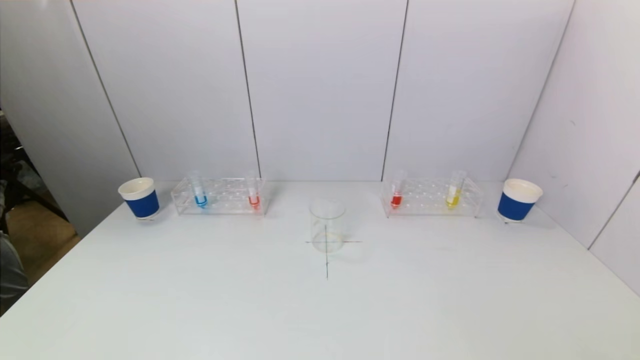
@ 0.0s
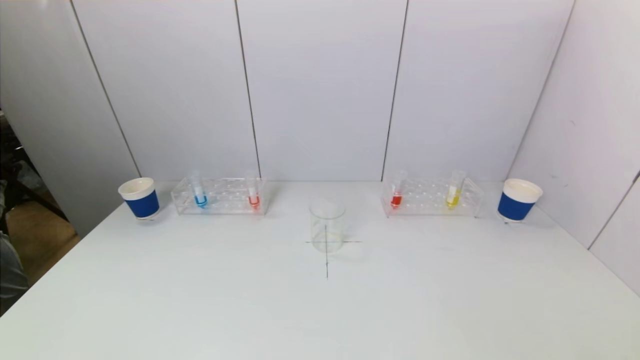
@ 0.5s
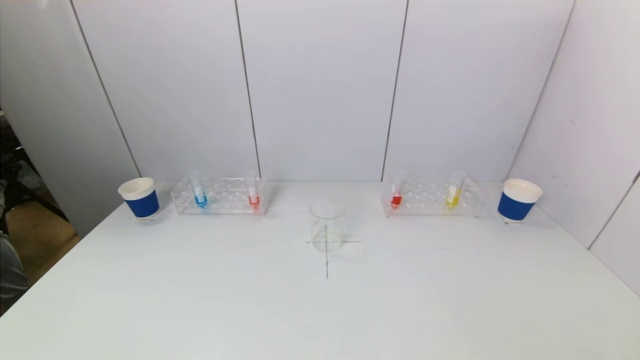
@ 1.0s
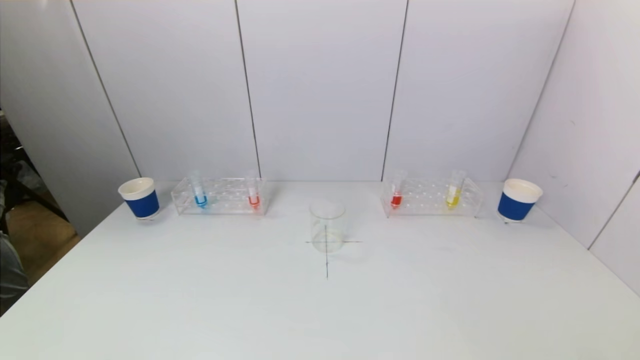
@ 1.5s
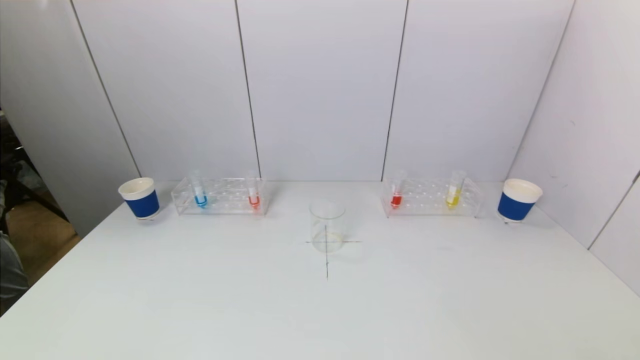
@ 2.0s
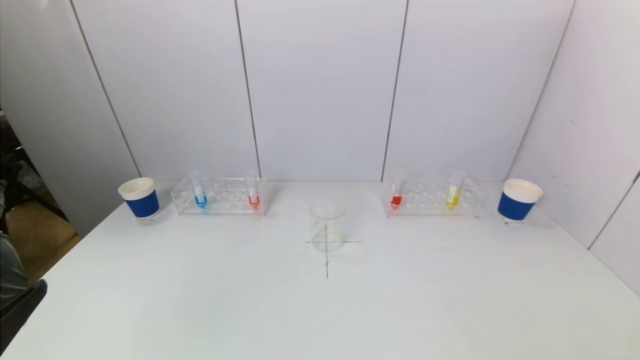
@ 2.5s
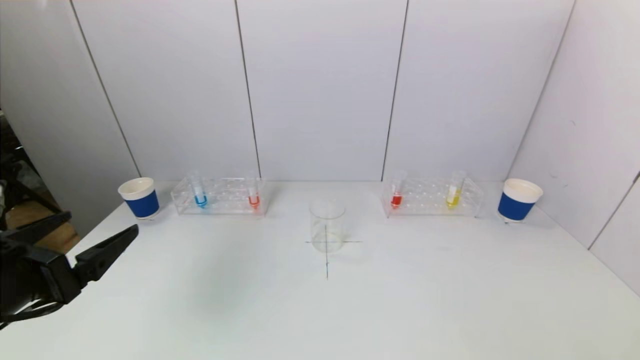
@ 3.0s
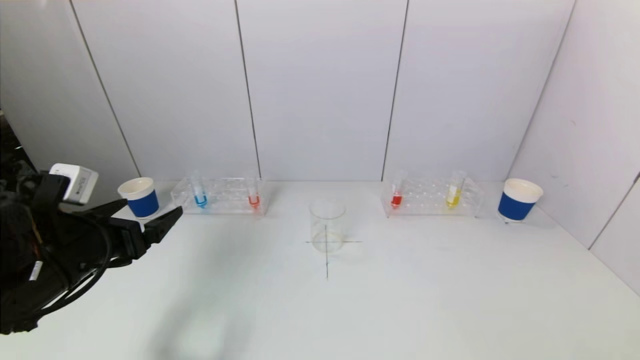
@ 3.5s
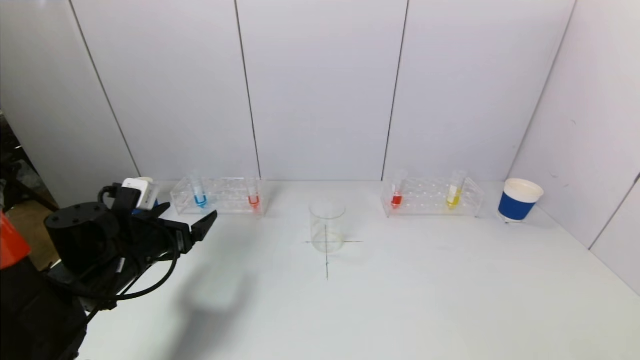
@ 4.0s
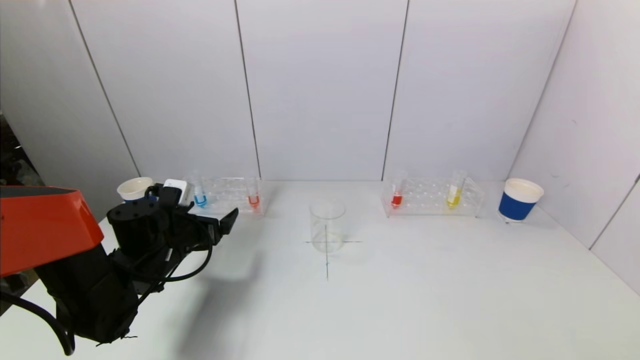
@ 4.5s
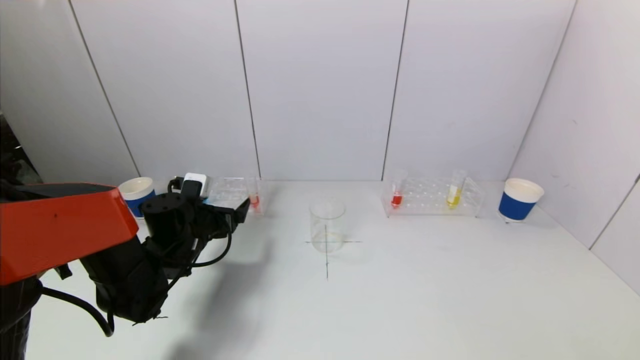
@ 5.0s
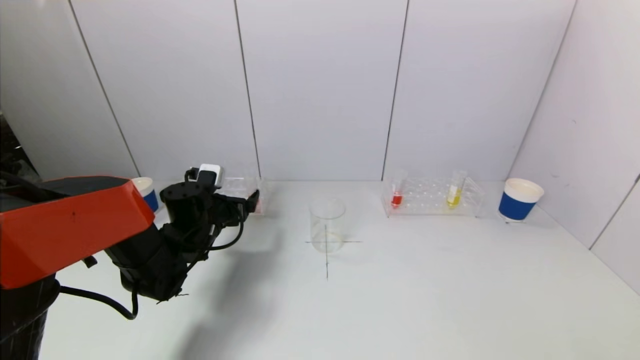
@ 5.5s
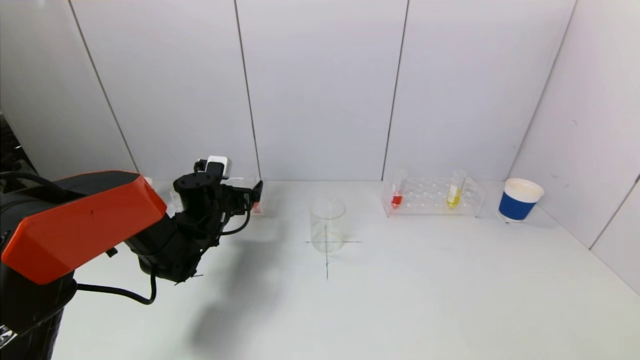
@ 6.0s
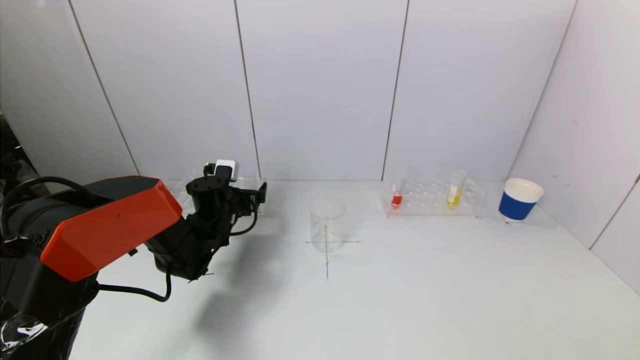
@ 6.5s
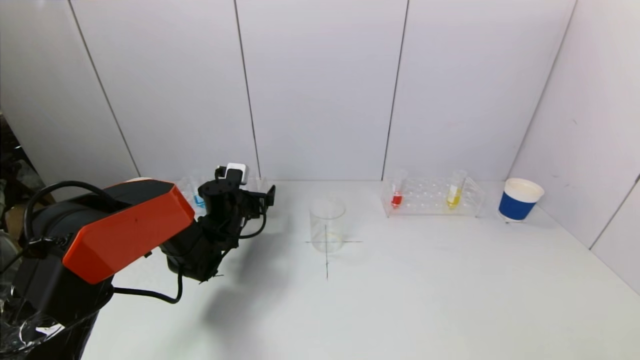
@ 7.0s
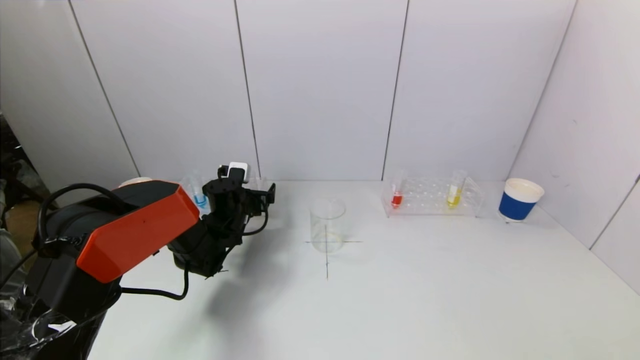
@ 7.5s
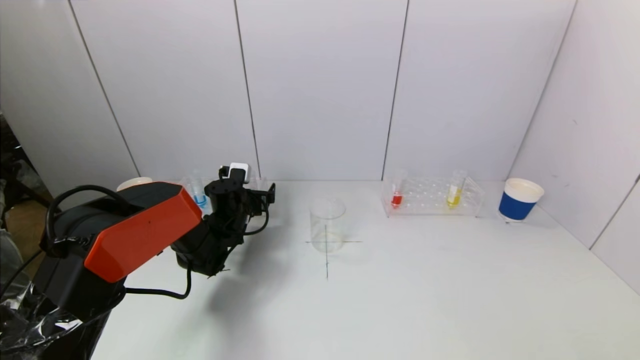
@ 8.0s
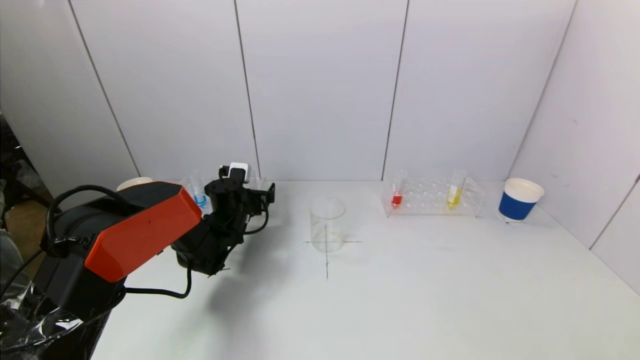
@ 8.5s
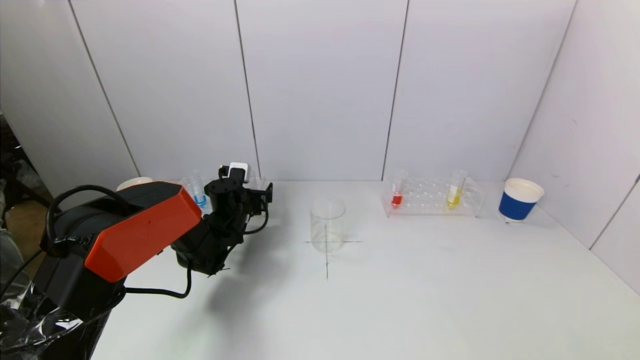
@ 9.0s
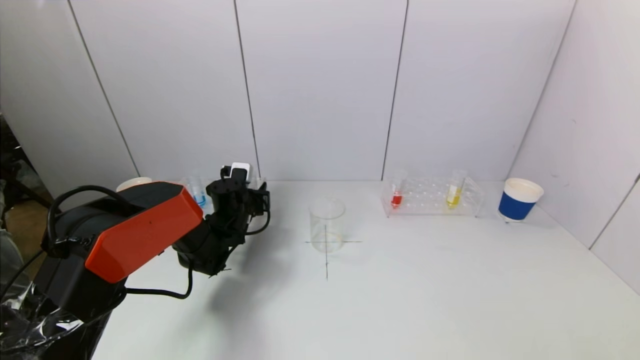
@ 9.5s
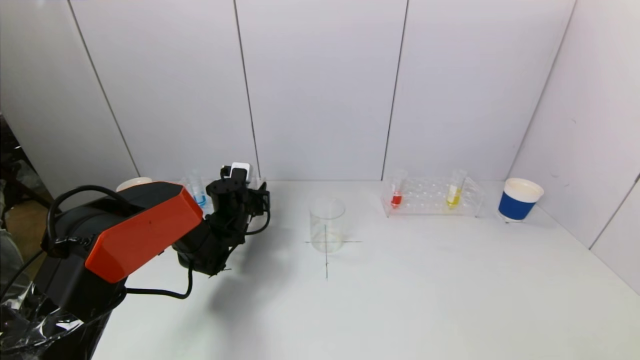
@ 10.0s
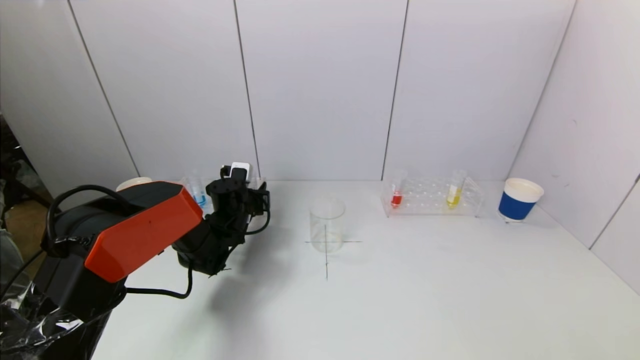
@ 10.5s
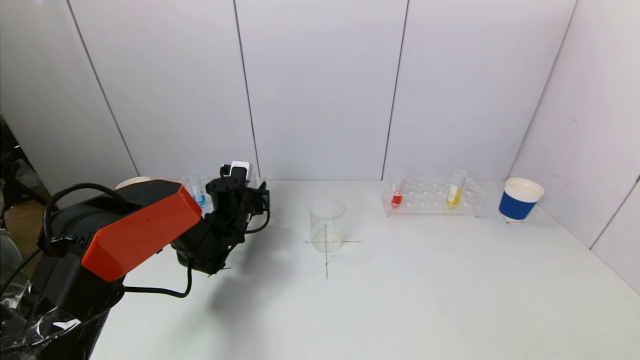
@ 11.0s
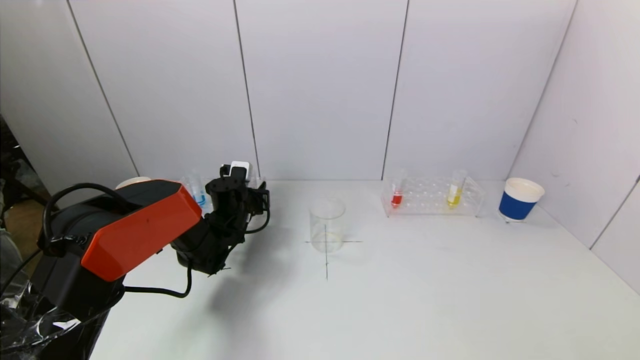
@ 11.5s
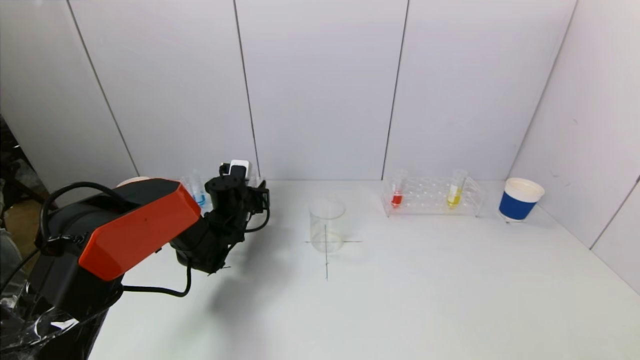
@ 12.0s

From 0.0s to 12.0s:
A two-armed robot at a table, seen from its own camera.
Task of the whole recording: pick up a test tube with pigment on left test tube rack and a test tube with pigment on right test tube rack by grippers and pour them into the beaker.
Step, from 0.0s to 9.5s: Grasp the red reagent with the left gripper.
From 2.0s to 4.0s: The left gripper travels forward by about 30 cm.
From 4.0s to 6.0s: The left gripper goes approximately 15 cm forward and to the right.
From 6.0s to 8.0s: The left gripper moves approximately 5 cm.
From 8.0s to 10.0s: The left gripper closes up.
From 10.0s to 12.0s: The grippers make only small movements.

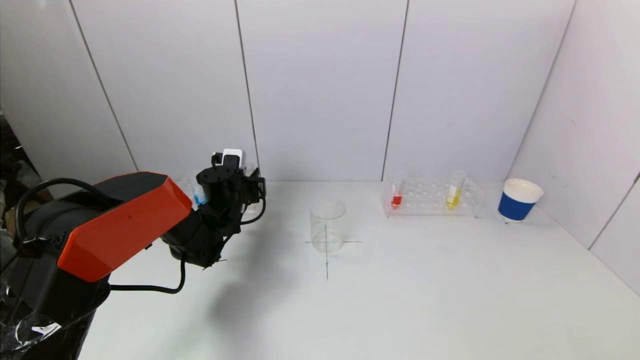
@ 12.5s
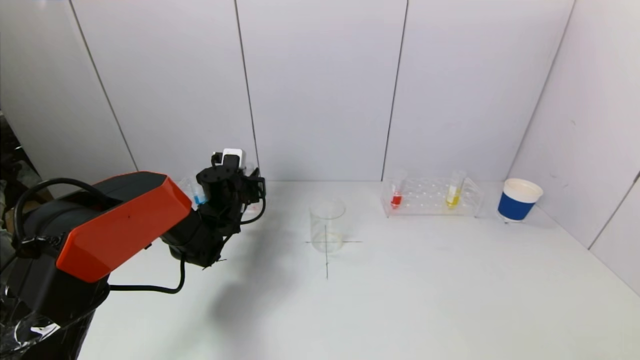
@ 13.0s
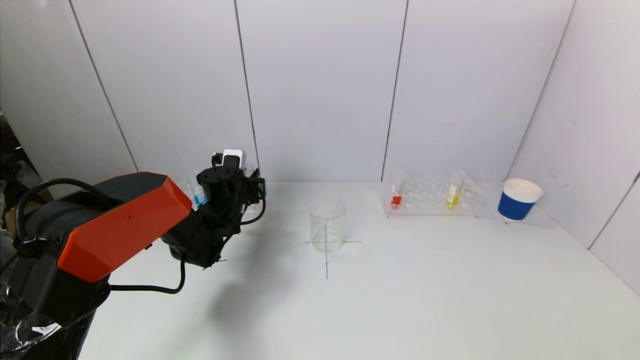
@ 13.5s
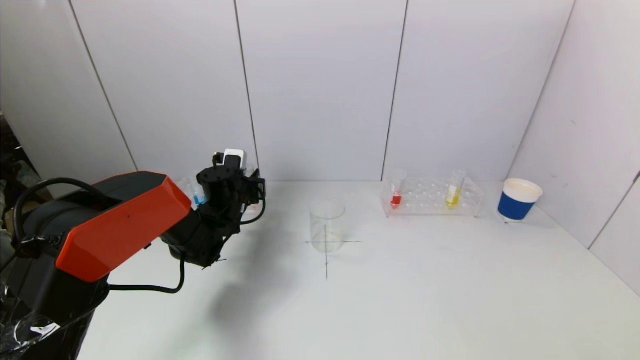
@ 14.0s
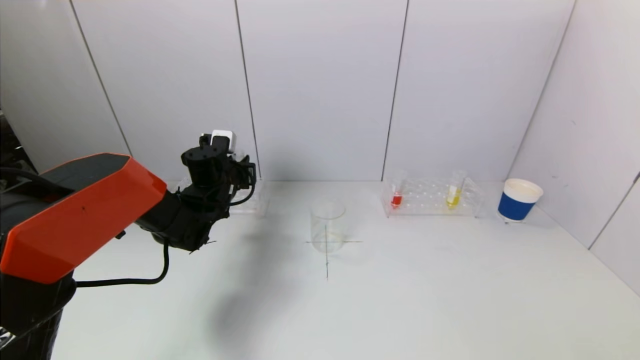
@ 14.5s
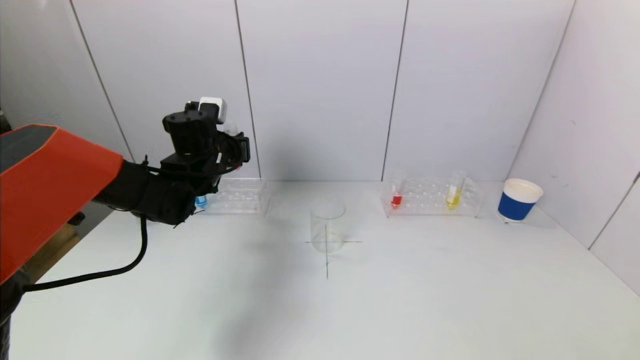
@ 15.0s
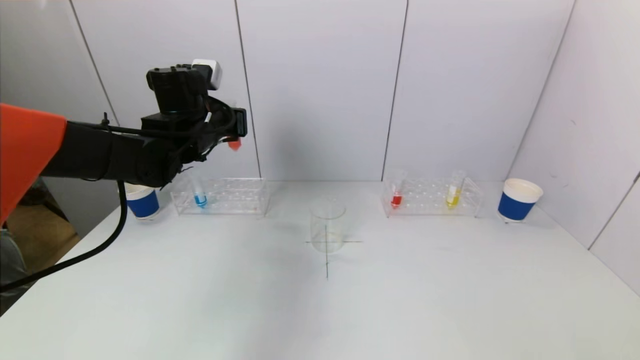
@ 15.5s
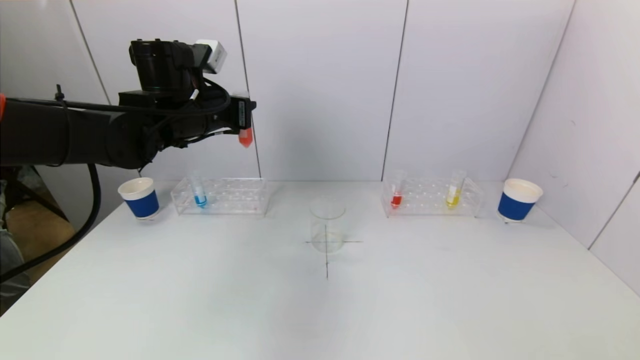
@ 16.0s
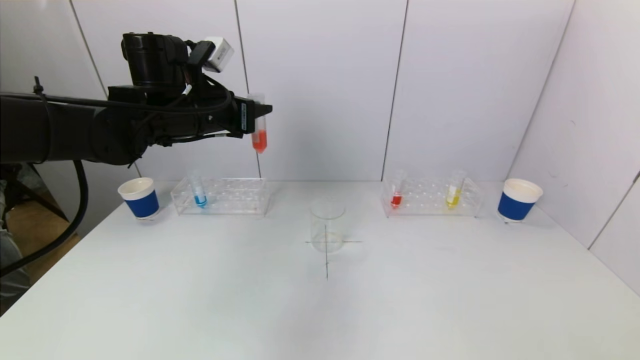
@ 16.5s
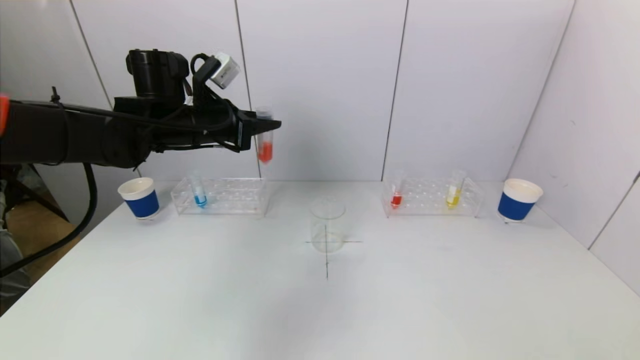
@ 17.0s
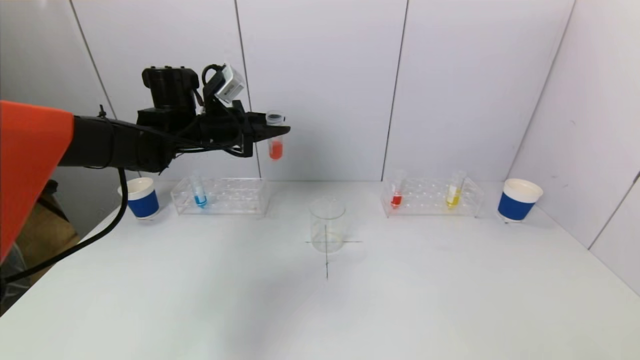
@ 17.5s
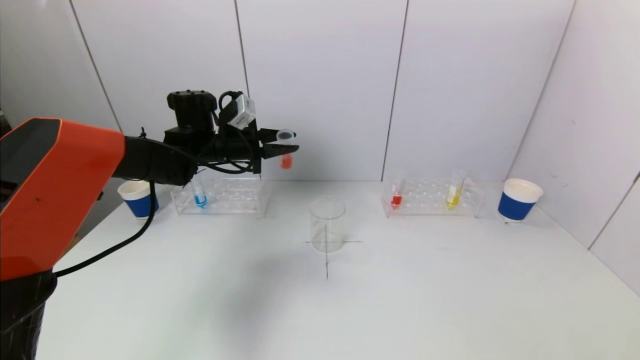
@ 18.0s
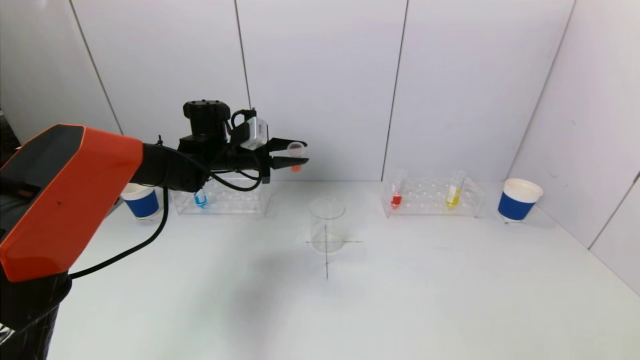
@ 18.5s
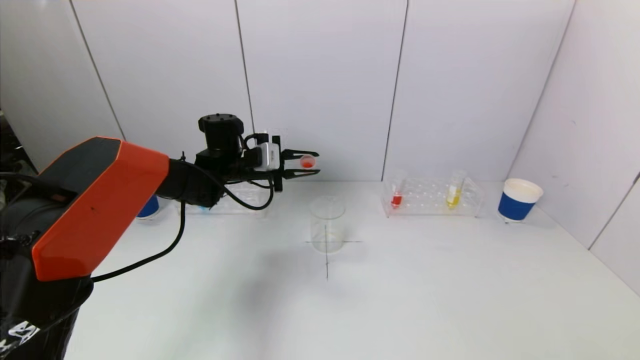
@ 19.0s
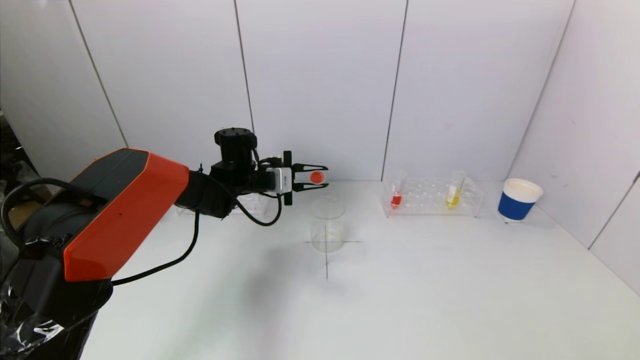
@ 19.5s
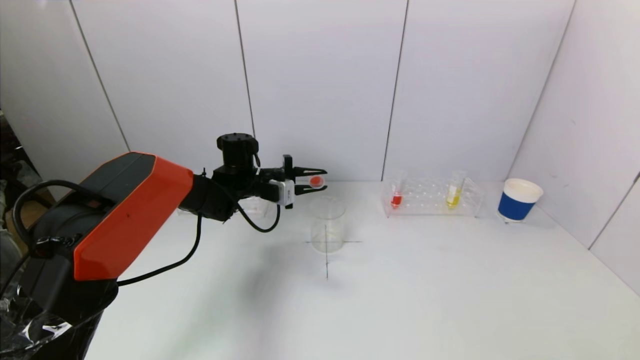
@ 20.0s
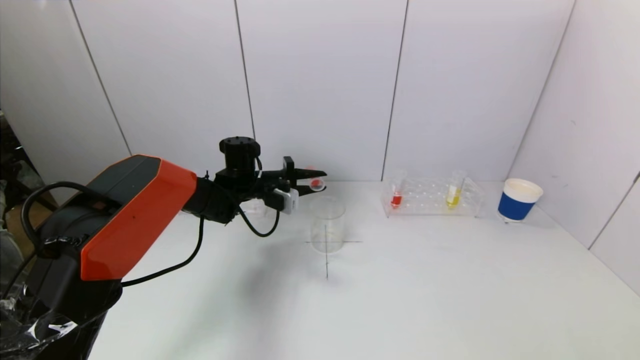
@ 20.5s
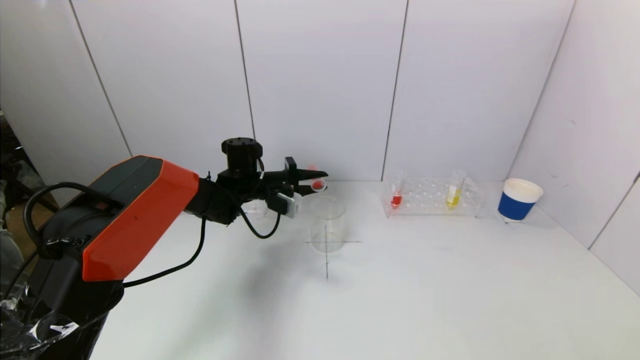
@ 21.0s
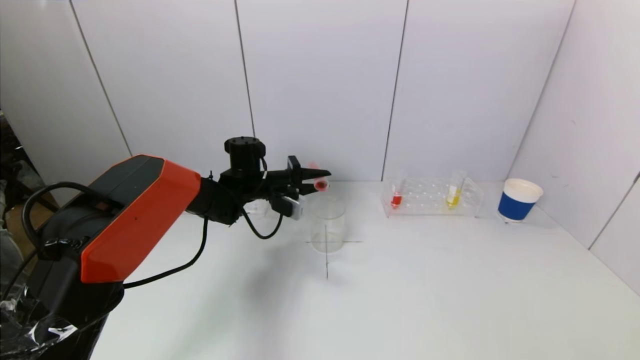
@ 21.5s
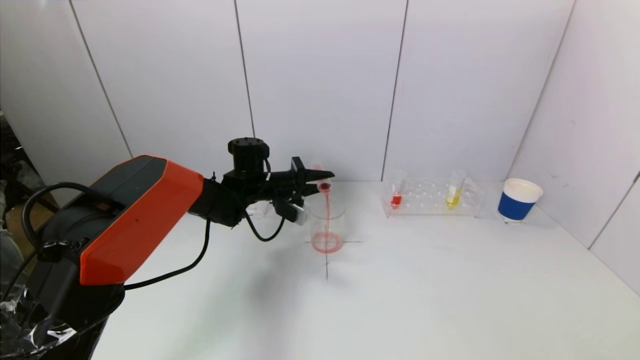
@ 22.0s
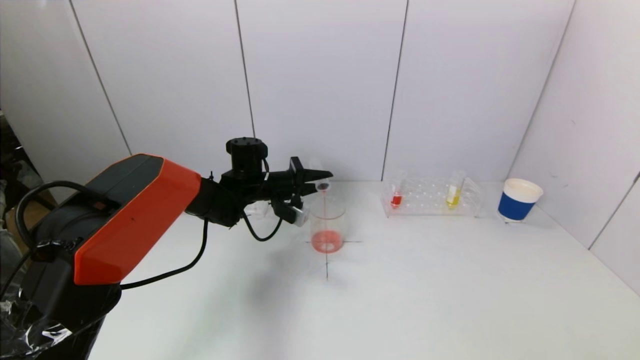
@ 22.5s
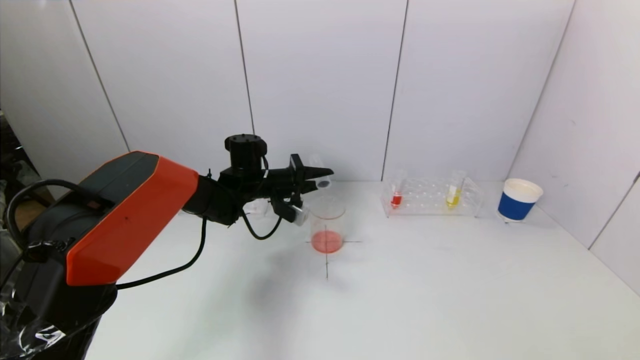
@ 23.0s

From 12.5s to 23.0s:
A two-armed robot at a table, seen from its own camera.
Task of the whole recording: pick up a test tube with pigment on left test tube rack and a test tube with pigment on right test tube rack by grippers and pour them into the beaker.
From 12.5s to 14.5s: The grippers make only small movements.
From 14.5s to 16.5s: The left gripper heads upward, covering about 15 cm.
From 16.5s to 19.0s: The left gripper travels downward and forward by approximately 15 cm.
From 19.0s to 21.0s: The left gripper moves about 5 cm.
From 21.0s to 23.0s: The grippers stay close to where they were, moving slightly.
